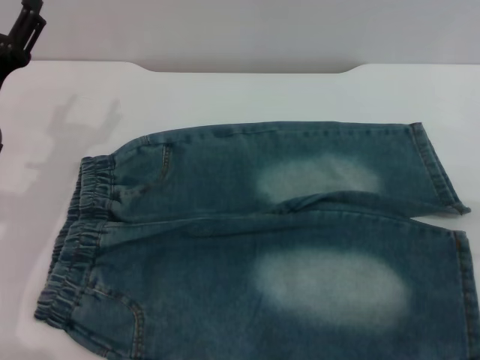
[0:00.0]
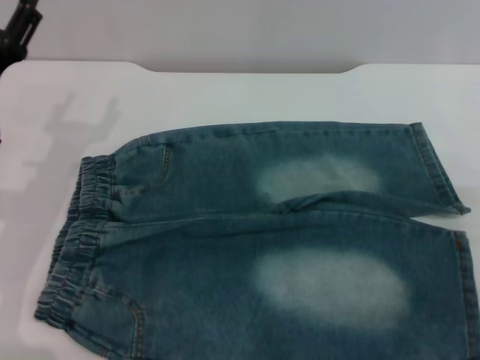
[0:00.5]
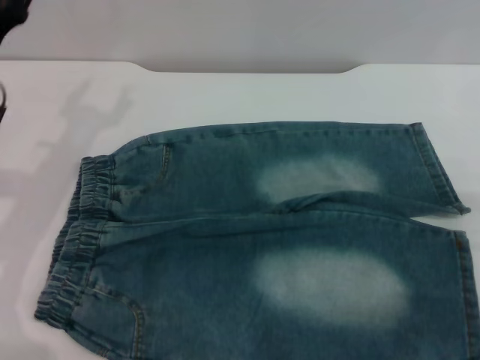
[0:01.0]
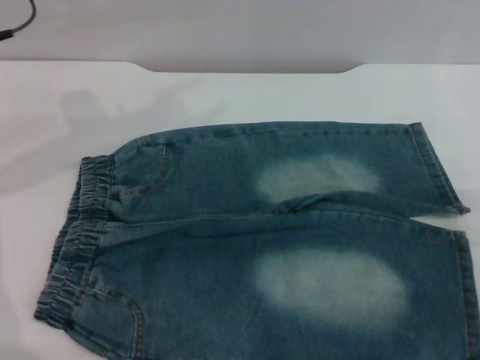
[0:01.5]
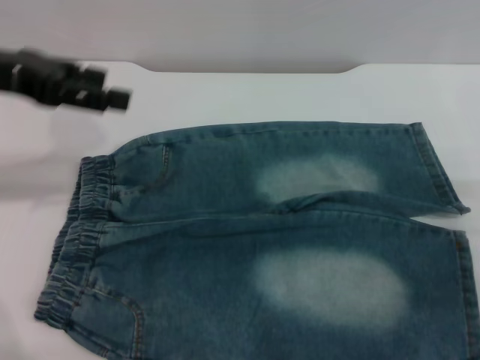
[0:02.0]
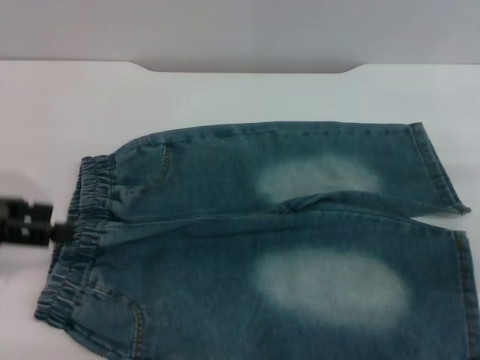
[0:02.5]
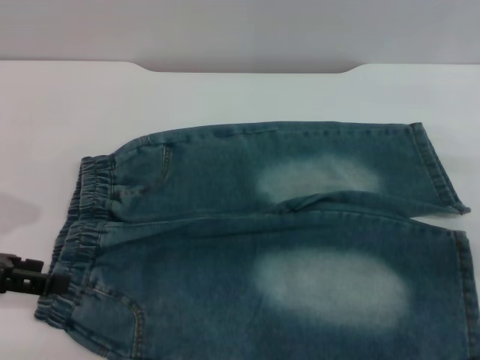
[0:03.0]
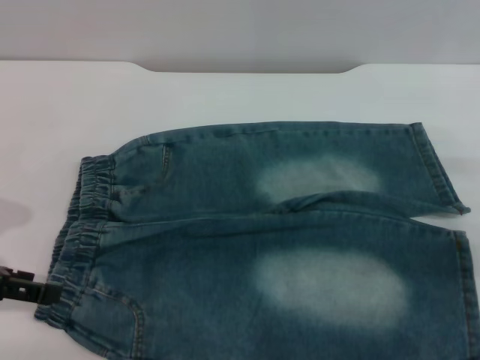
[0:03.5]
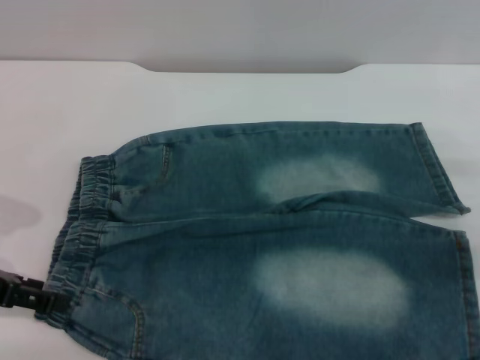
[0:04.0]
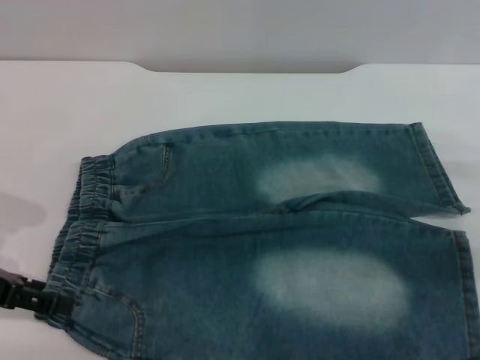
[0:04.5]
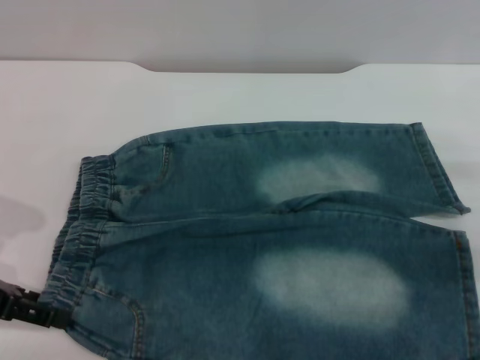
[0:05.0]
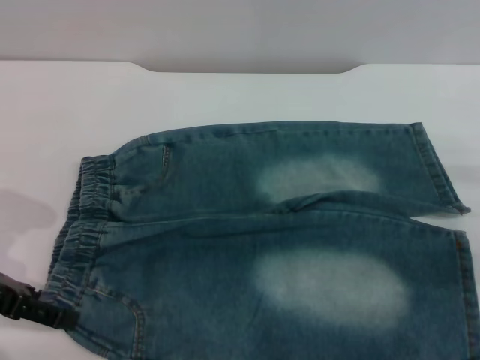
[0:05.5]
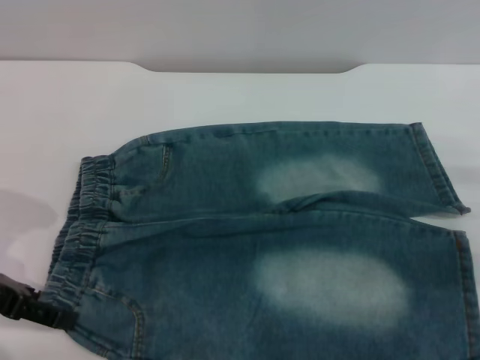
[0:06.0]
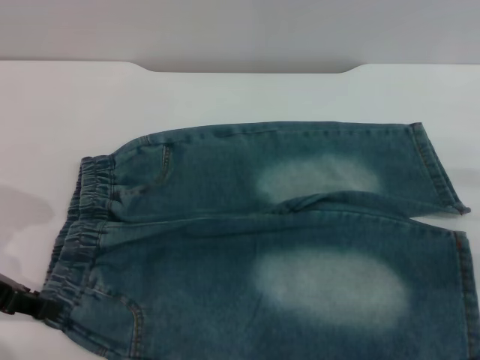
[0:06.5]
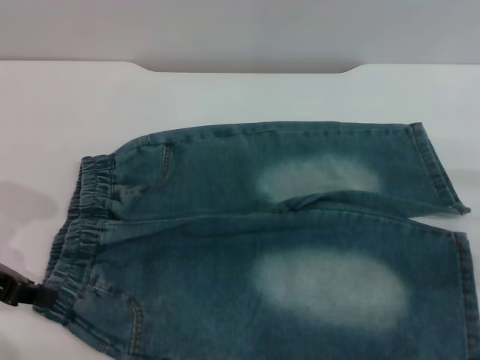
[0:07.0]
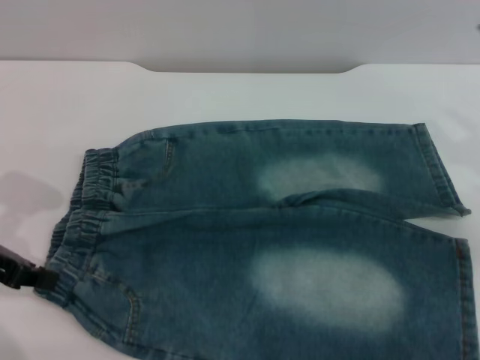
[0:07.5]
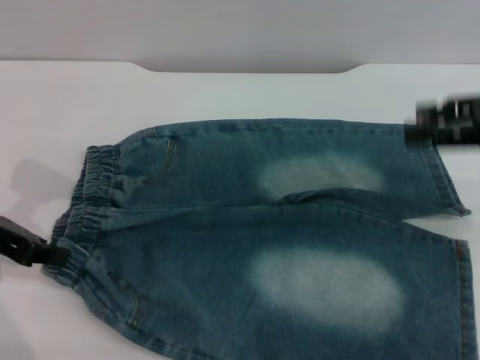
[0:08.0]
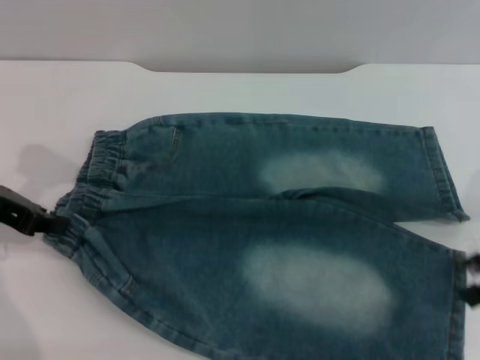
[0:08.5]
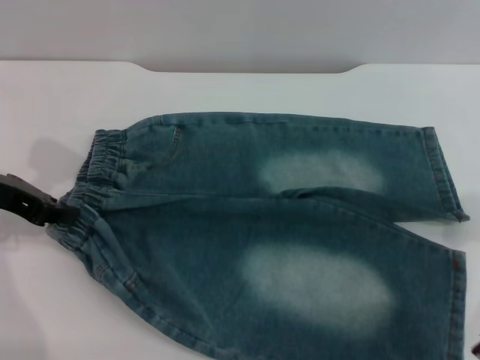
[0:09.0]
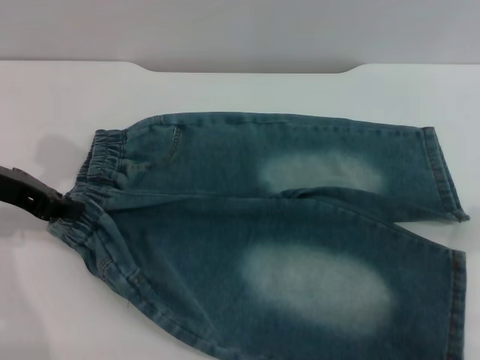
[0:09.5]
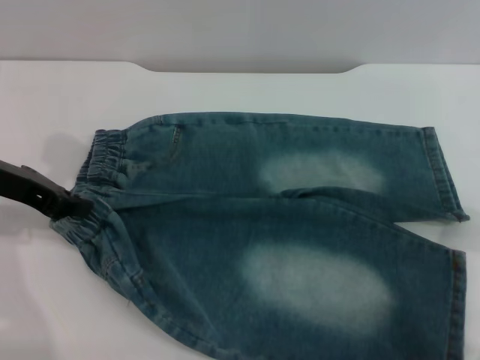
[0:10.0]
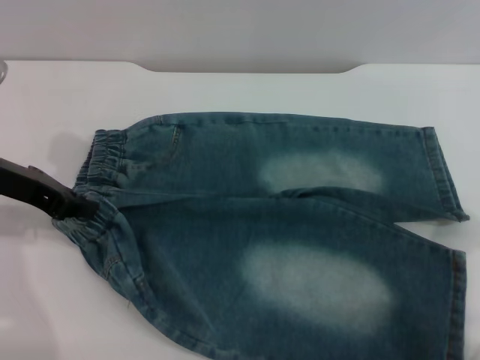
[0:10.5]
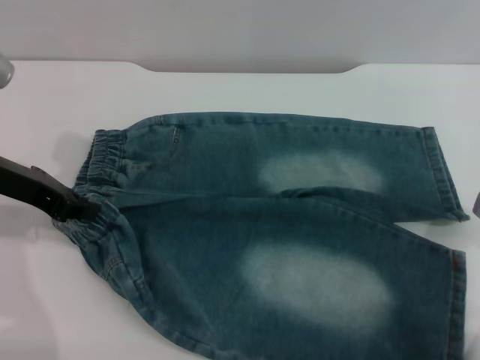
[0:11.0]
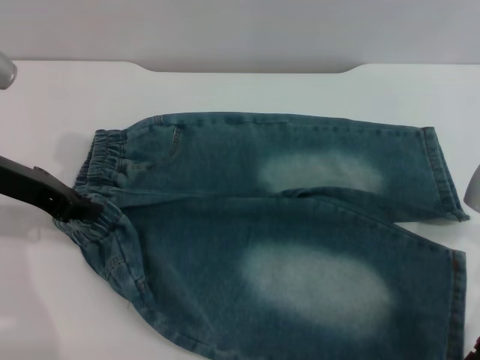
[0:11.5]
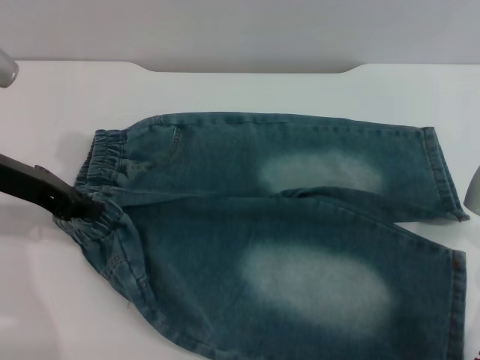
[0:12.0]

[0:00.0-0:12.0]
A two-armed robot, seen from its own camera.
0:00.0 to 0:02.0: The left gripper goes about 15 cm upward.
0:02.0 to 0:04.0: The left gripper goes about 15 cm downward, backward and to the left.
0:04.0 to 0:06.0: The grippers move only a little.
0:06.0 to 0:08.0: The right gripper moves upward, about 15 cm. Meanwhile the left gripper closes up.
0:08.0 to 0:10.0: The right gripper is displaced downward by about 10 cm.
0:10.0 to 0:12.0: The grippers stay close to where they were, moving slightly.

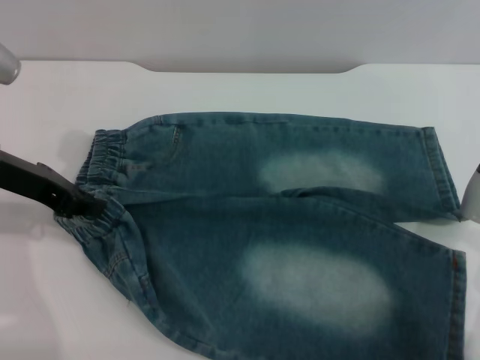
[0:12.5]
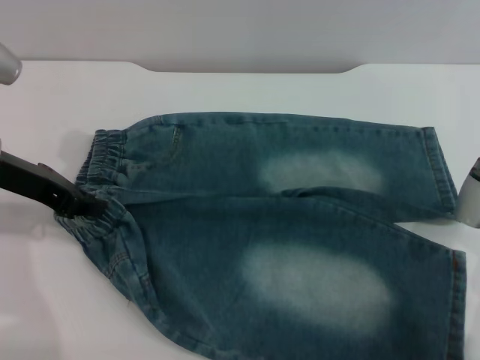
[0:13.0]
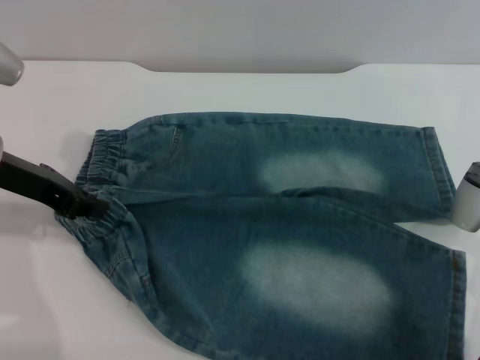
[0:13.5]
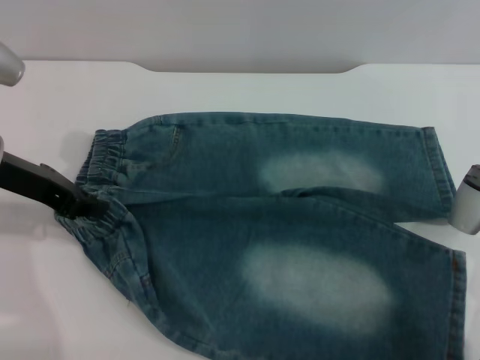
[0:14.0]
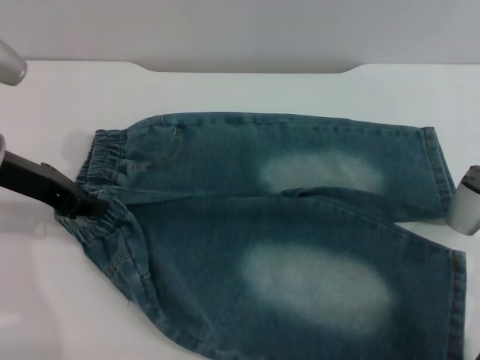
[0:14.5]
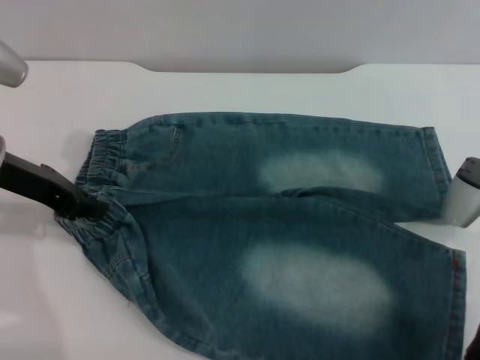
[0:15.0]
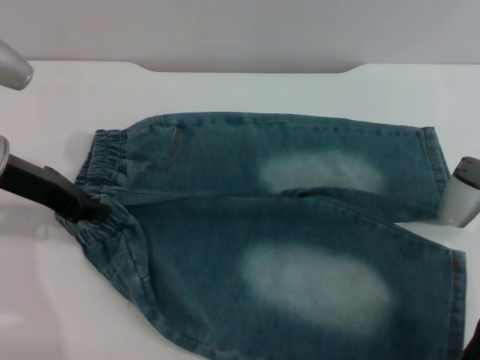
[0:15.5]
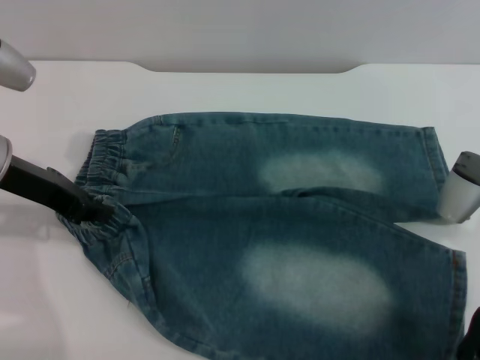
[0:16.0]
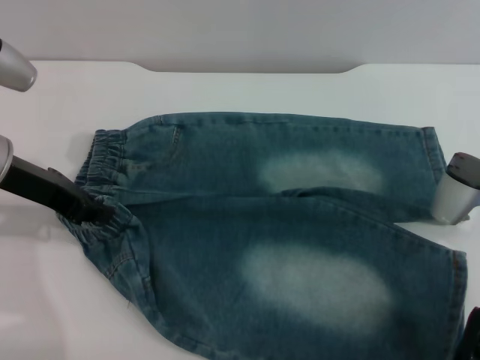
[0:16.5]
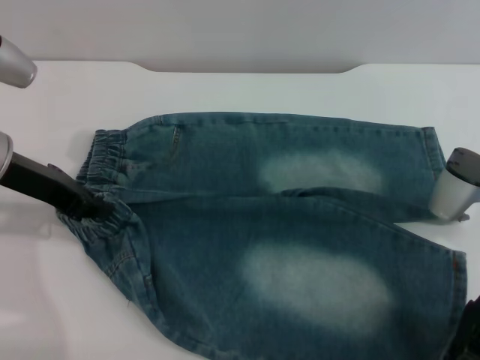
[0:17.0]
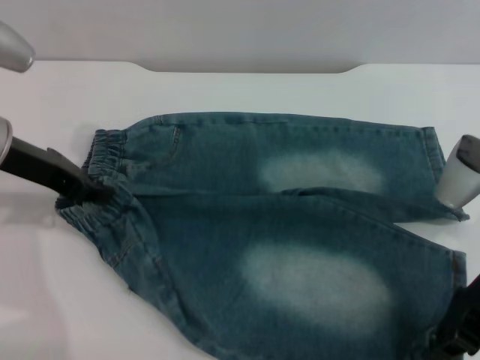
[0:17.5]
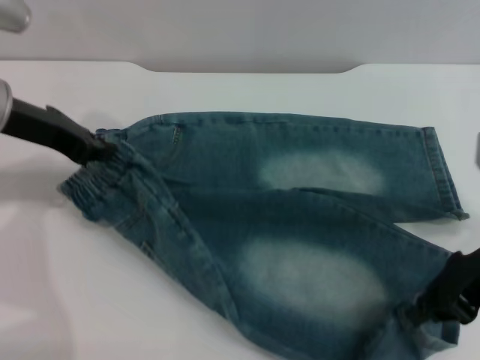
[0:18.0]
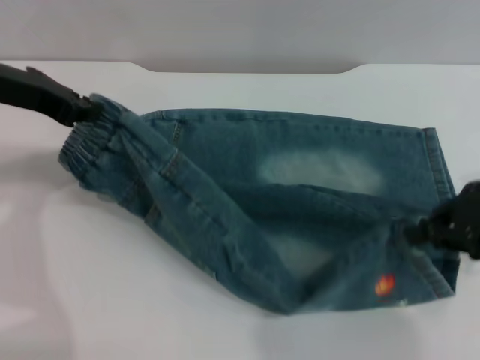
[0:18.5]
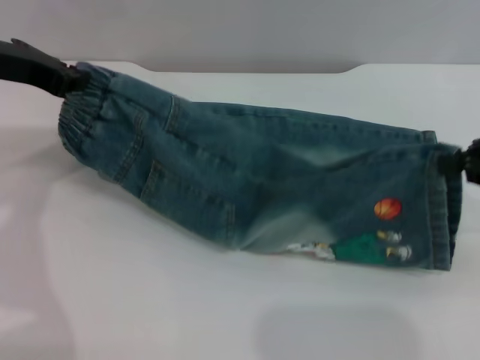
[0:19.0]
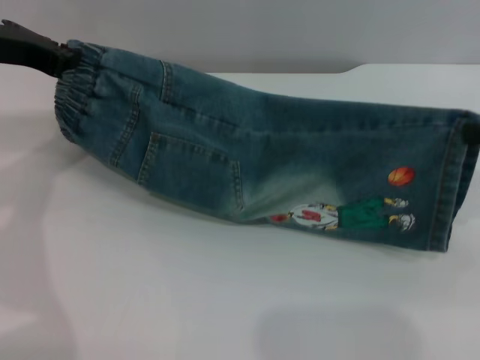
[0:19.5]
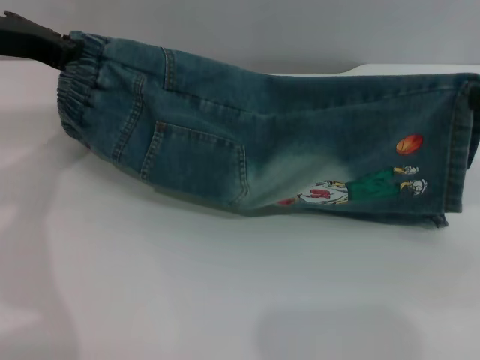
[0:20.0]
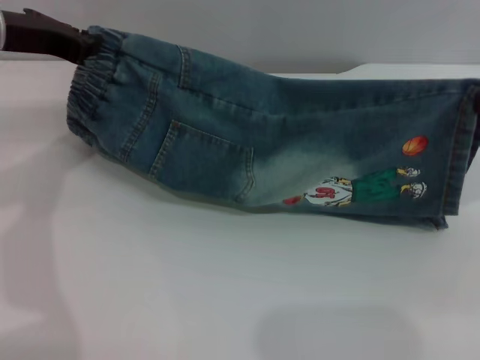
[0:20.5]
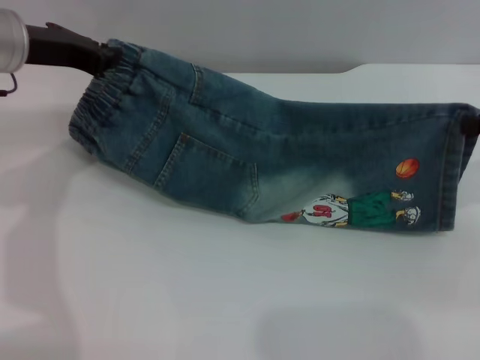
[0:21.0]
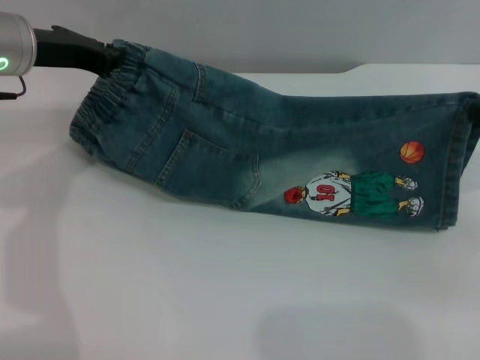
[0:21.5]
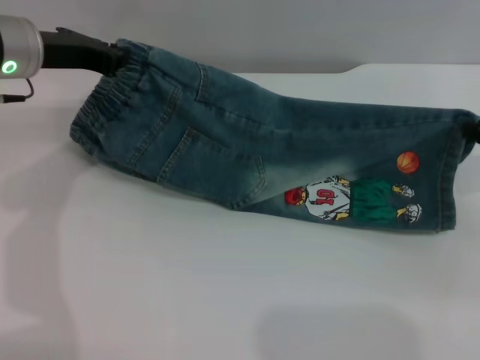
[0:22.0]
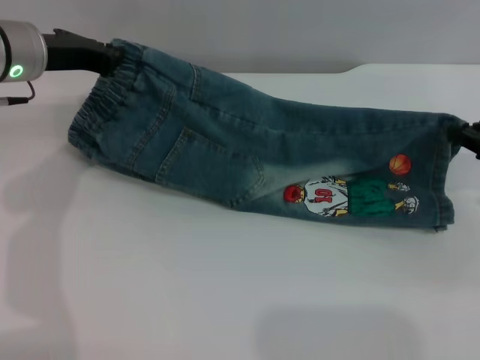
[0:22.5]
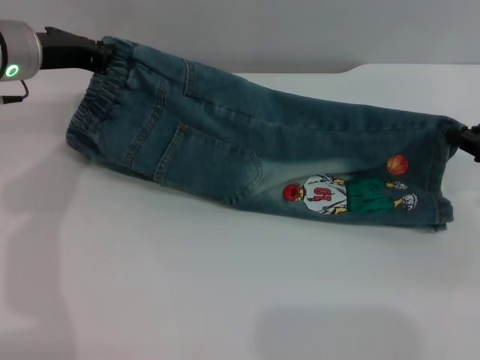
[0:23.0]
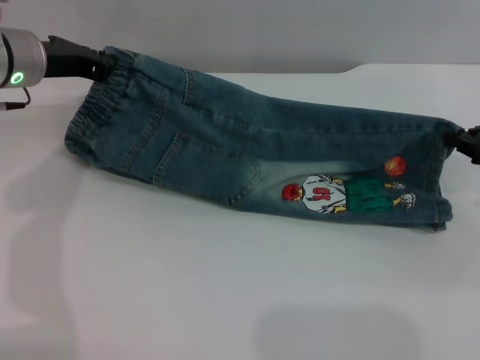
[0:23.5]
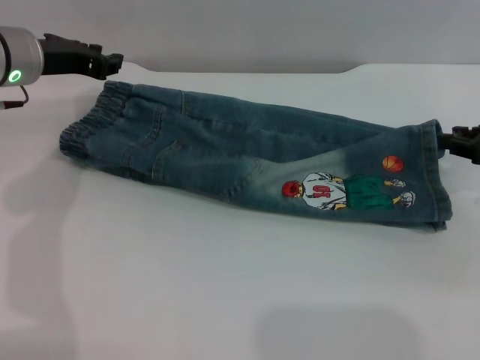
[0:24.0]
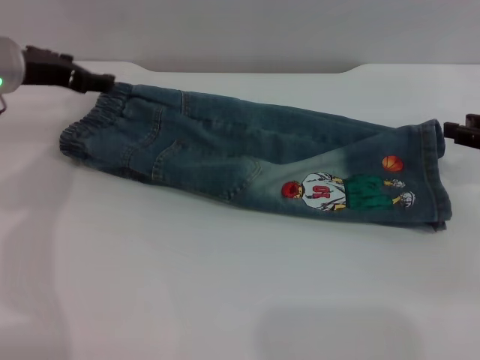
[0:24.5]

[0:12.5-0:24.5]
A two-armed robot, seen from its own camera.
0:12.5 to 0:14.5: Both grippers stay put.
0:14.5 to 0:16.5: The right gripper closes.
0:16.5 to 0:18.5: The grippers both shift upward by approximately 5 cm.
0:18.5 to 0:20.5: The right gripper travels to the right by approximately 5 cm.
0:20.5 to 0:22.5: The right gripper moves downward, approximately 5 cm, while the left gripper changes place by roughly 5 cm.
0:22.5 to 0:24.5: The left gripper opens. The right gripper opens up.

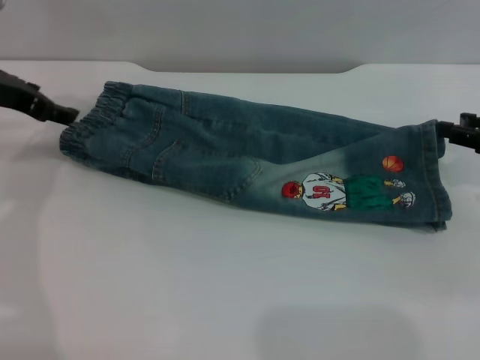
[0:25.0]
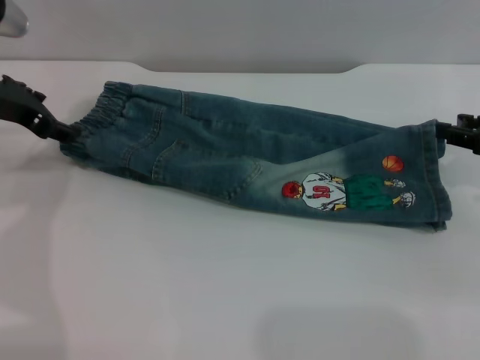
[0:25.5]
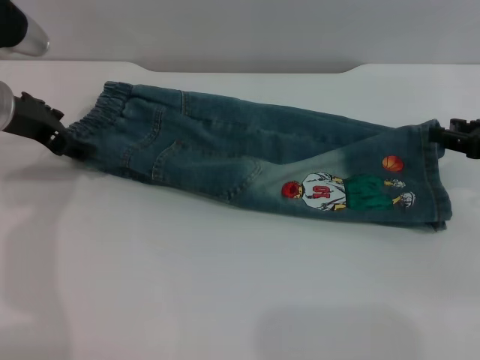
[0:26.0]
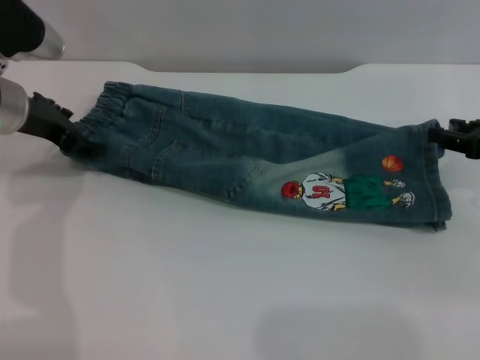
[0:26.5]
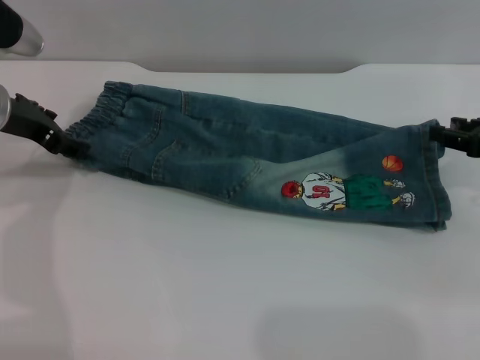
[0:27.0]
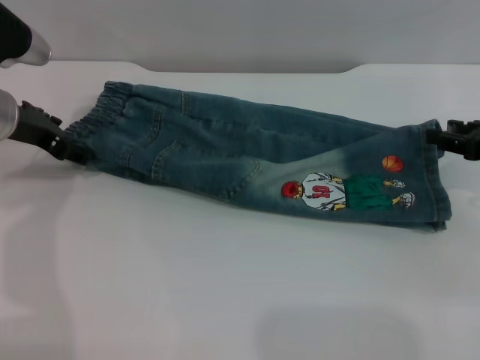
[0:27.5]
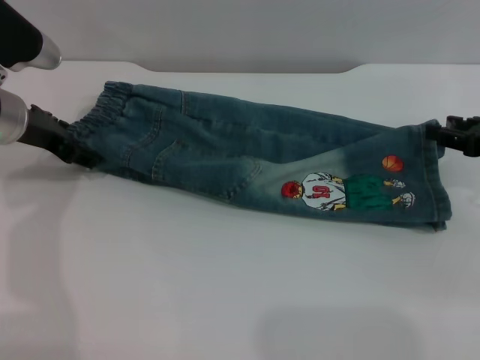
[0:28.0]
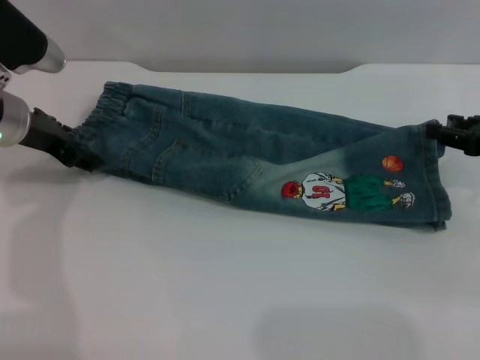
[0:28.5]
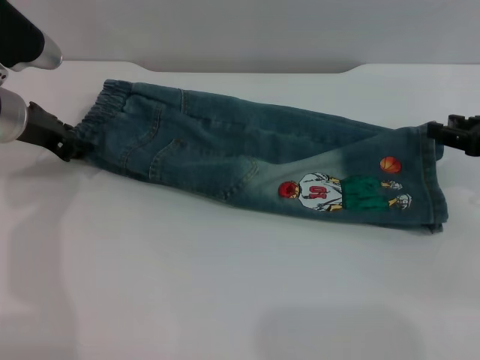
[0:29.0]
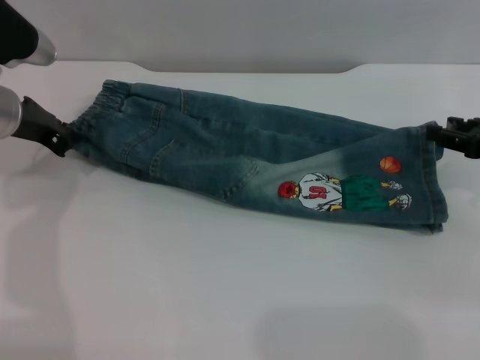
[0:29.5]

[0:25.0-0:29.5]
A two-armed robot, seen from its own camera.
0:25.0 to 0:27.0: The grippers stay close to where they were, moving slightly.
0:27.0 to 0:29.5: The left gripper closes up.
